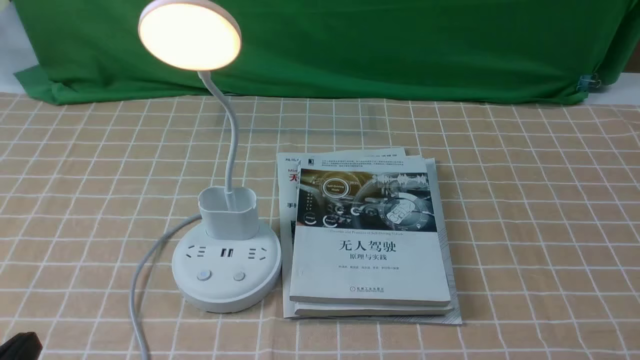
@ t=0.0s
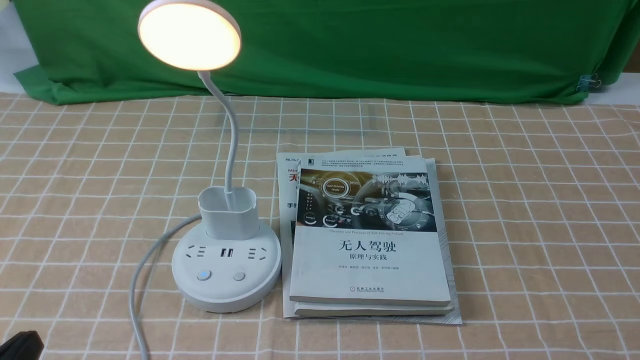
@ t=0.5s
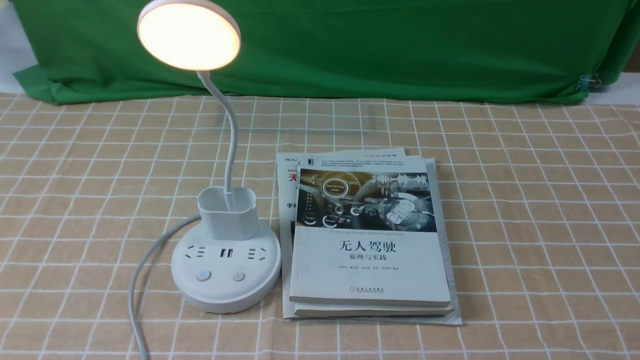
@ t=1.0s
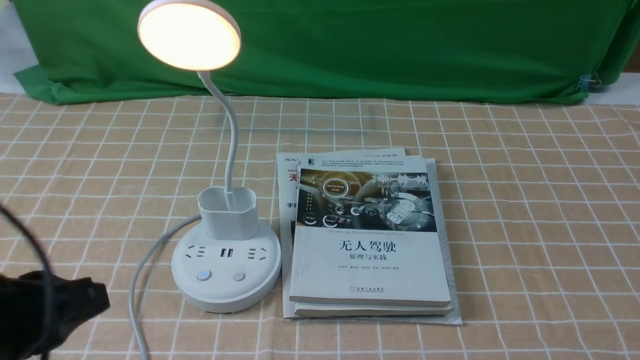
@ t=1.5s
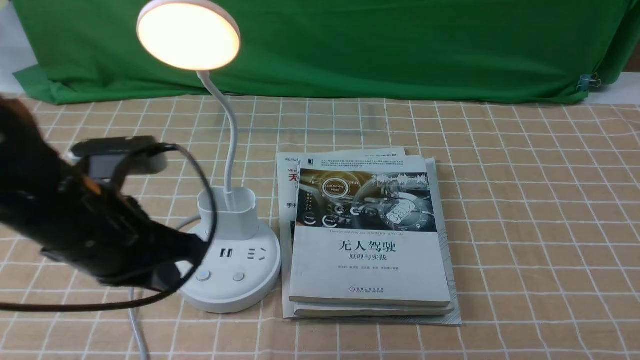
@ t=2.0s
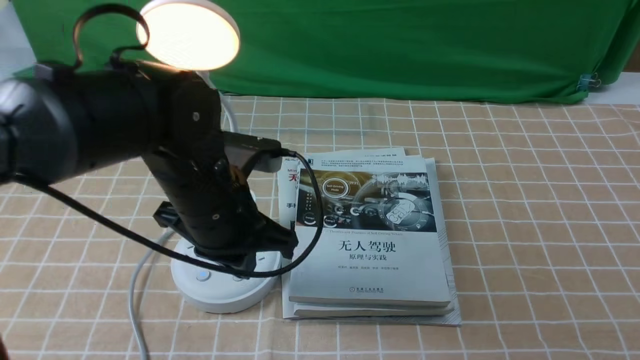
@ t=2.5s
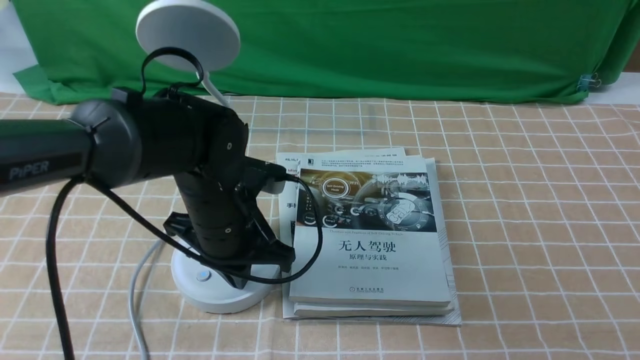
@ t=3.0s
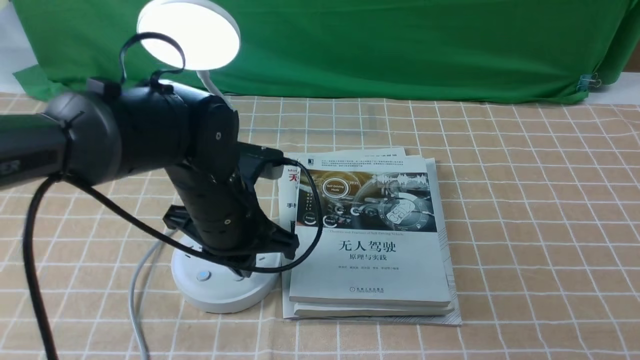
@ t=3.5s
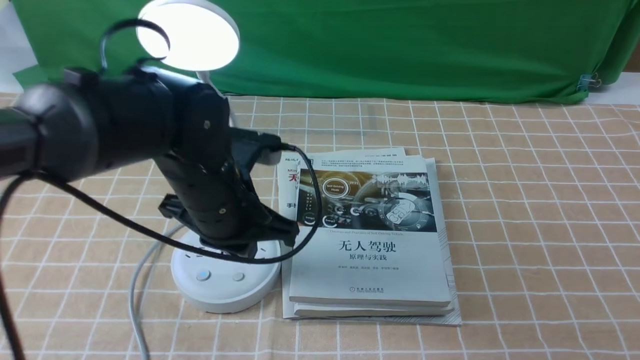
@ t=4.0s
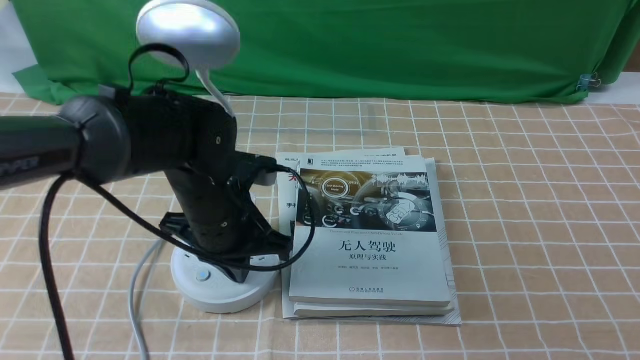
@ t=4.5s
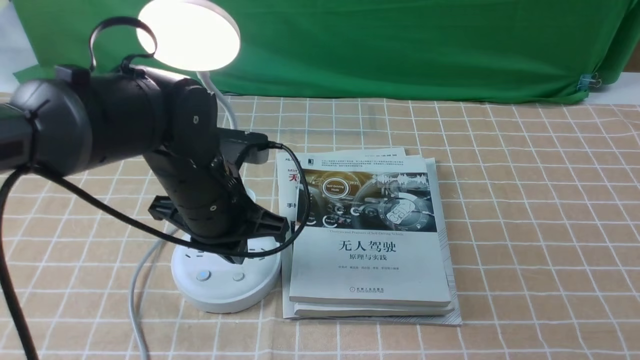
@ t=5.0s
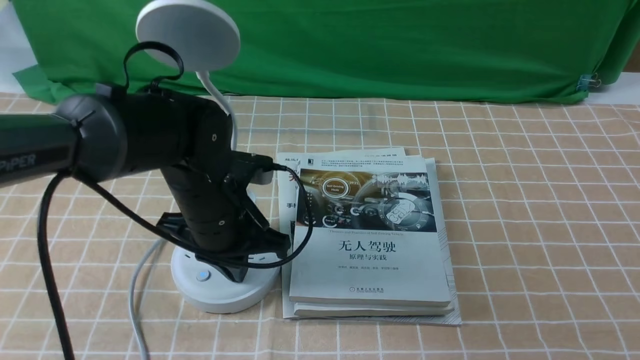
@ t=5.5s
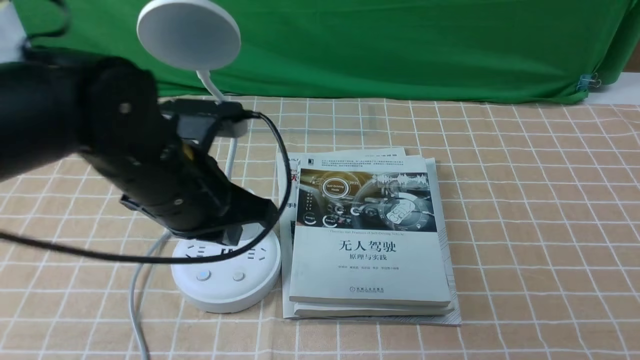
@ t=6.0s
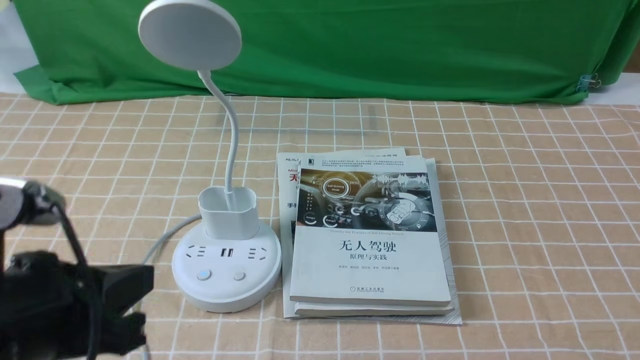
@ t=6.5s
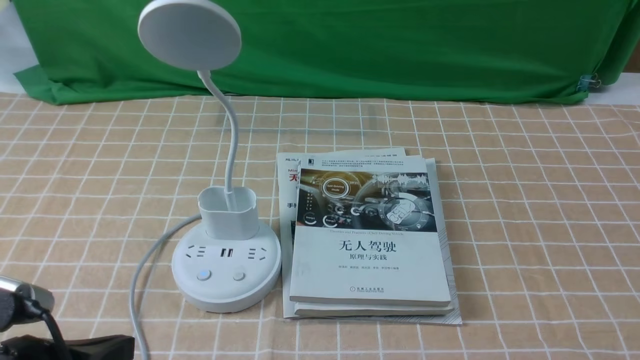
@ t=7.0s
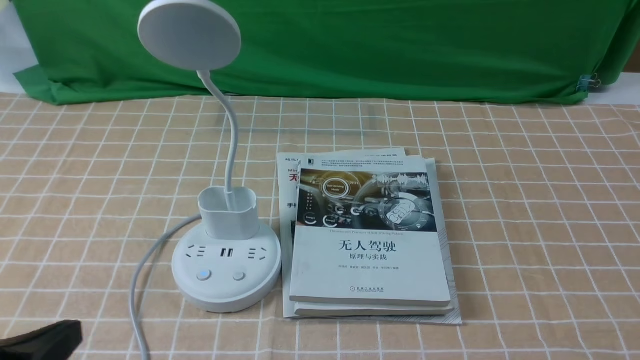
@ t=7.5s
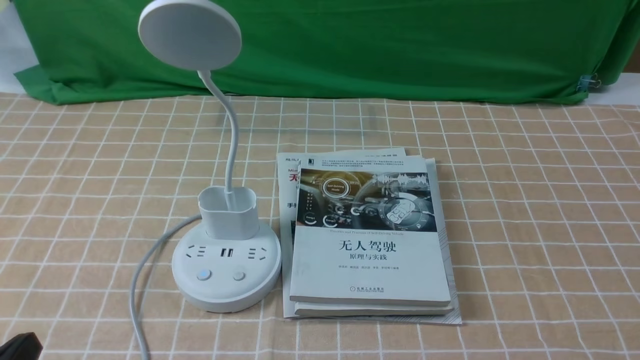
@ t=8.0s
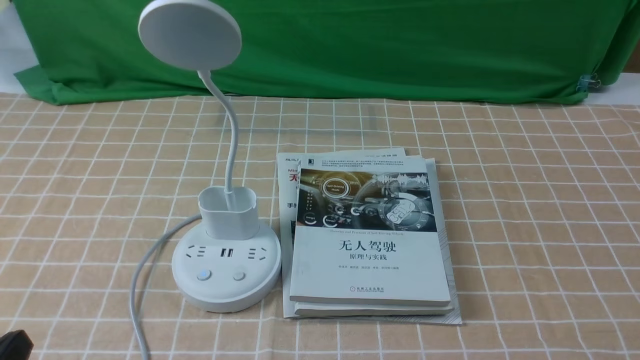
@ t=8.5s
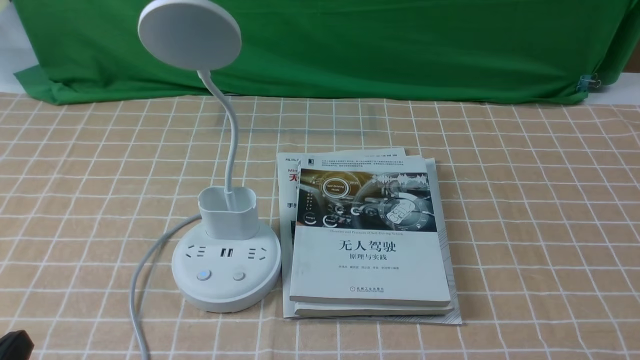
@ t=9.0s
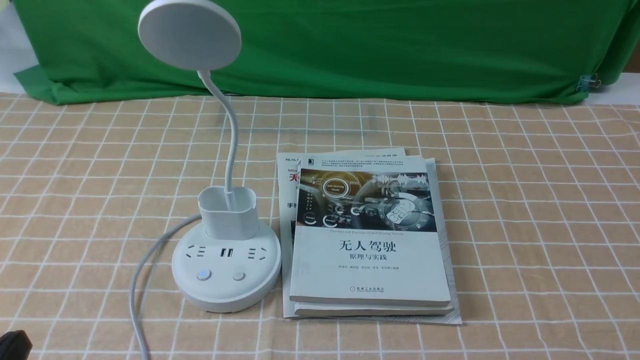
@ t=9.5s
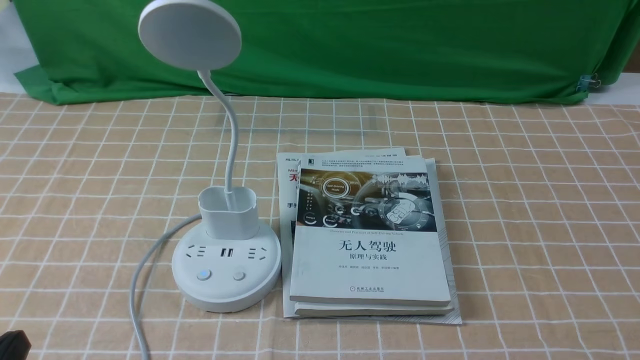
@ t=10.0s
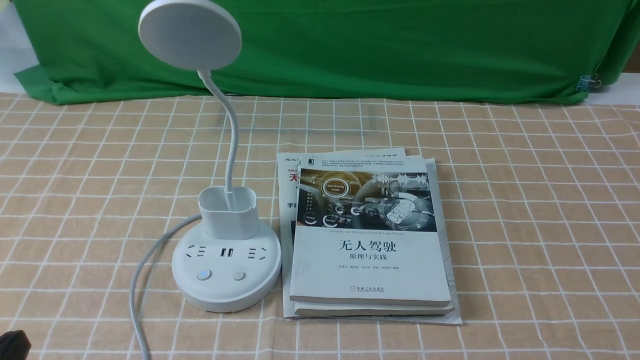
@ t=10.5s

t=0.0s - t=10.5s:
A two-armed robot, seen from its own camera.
Task of the whole recording: turn off the desk lamp on the light coffee tablecloth by hand.
Step, t=0.0s - t=5.5s: use the left arm to press the button switch on the lamp holder.
t=0.0s - t=2.0s: The left gripper heads forward, upward and to the right, covering some 20 cm, and closes its fingers.
t=2.0s - t=4.0s: The left gripper moves to the right and forward, about 10 cm.
t=4.0s - t=6.5s: The left gripper heads backward and to the left, covering approximately 20 cm.
t=6.5s - t=8.5s: The left gripper heads downward, backward and to the left, covering approximately 15 cm.
